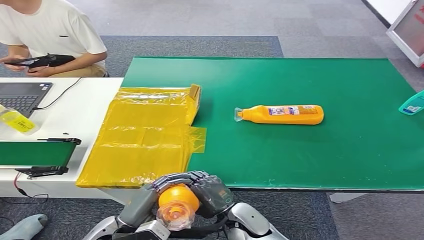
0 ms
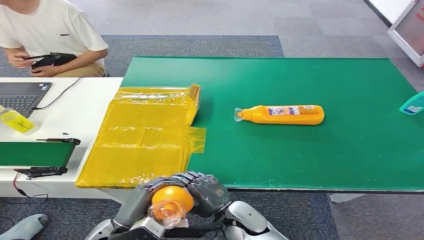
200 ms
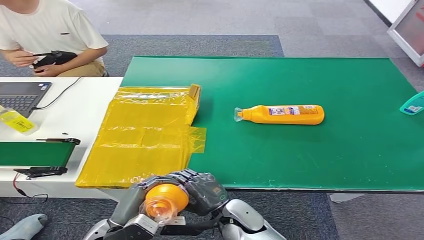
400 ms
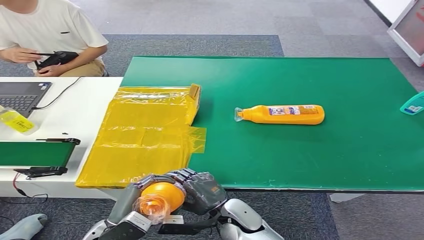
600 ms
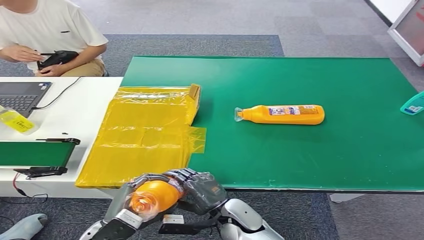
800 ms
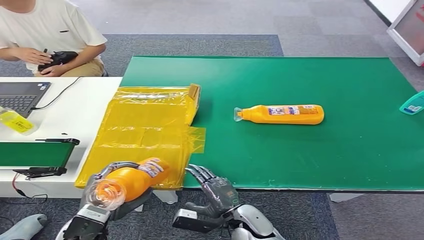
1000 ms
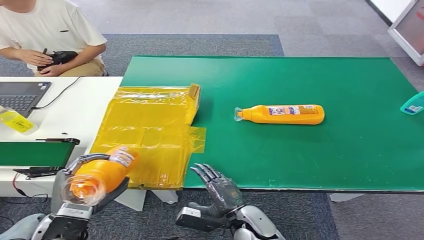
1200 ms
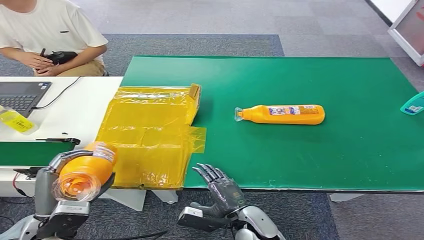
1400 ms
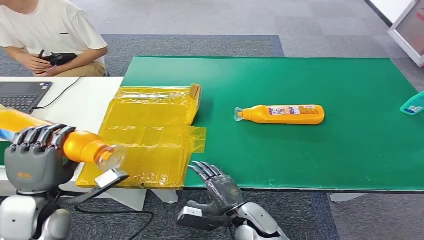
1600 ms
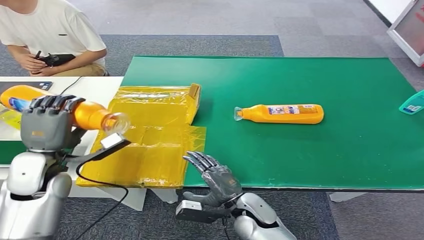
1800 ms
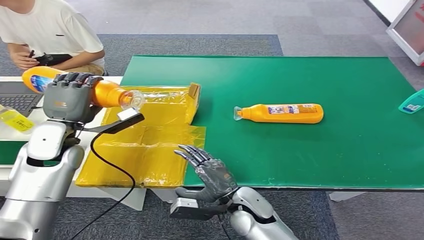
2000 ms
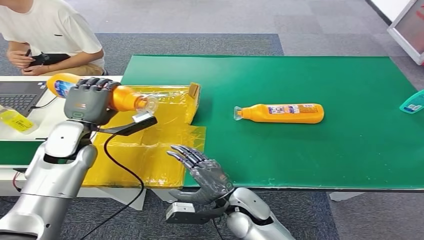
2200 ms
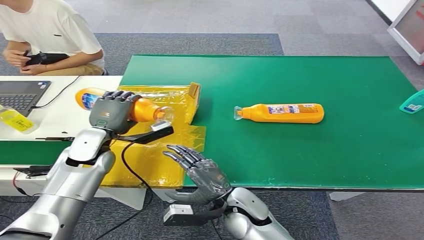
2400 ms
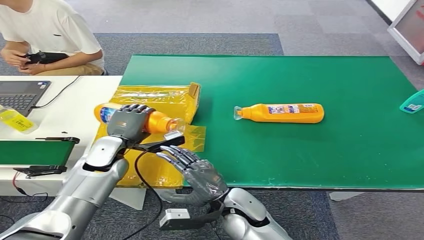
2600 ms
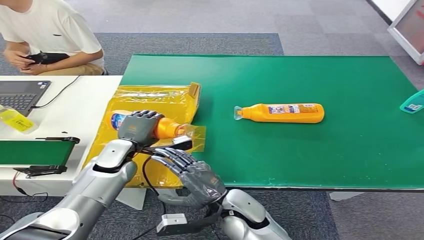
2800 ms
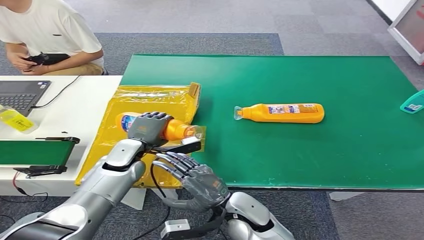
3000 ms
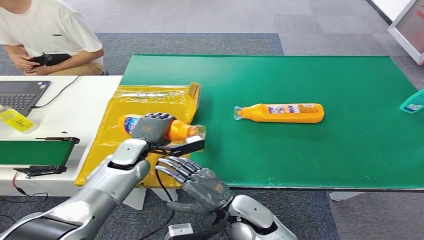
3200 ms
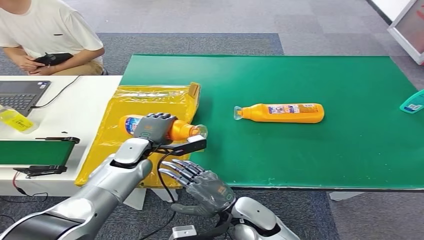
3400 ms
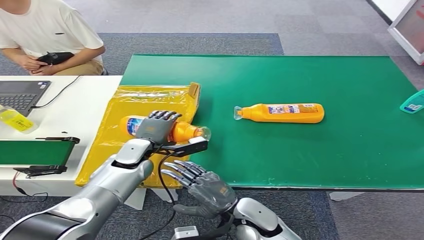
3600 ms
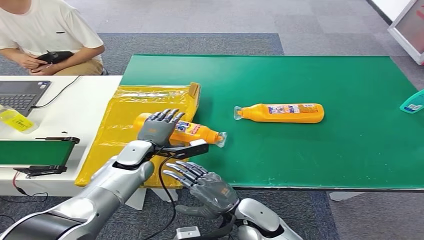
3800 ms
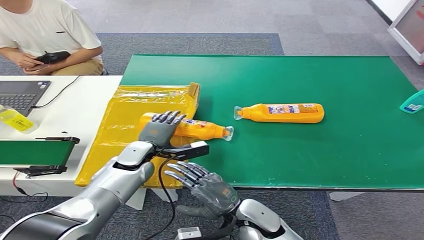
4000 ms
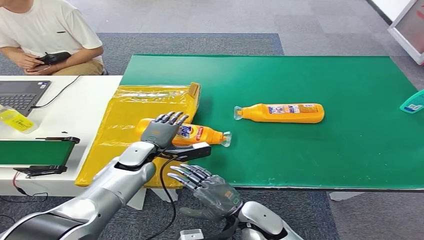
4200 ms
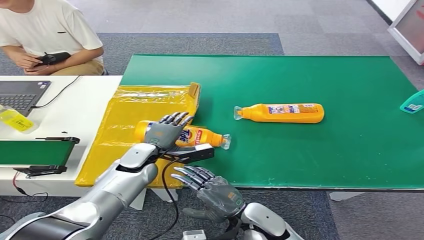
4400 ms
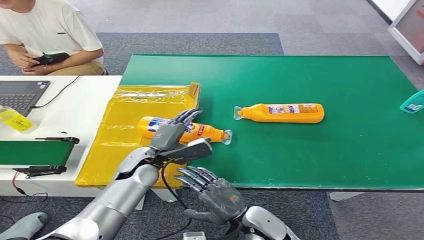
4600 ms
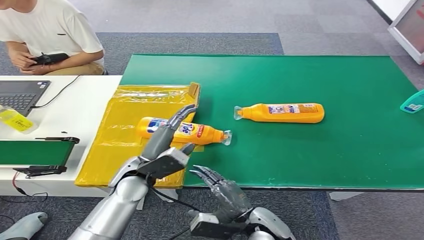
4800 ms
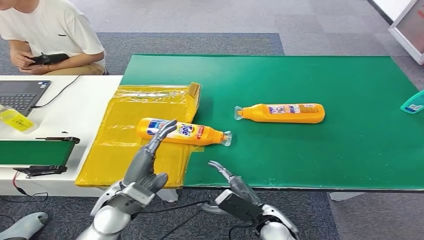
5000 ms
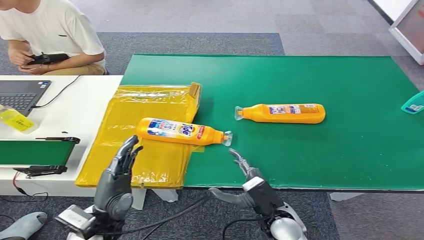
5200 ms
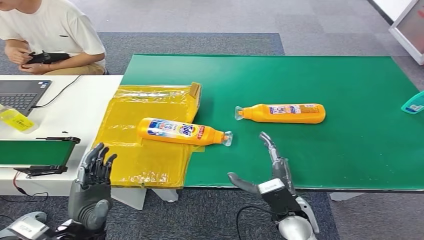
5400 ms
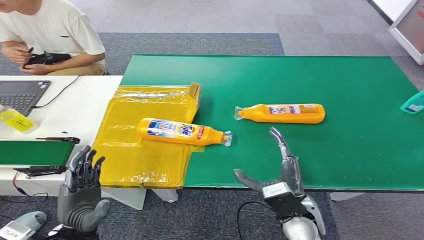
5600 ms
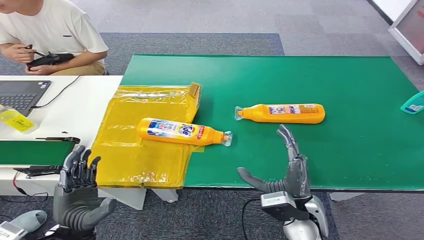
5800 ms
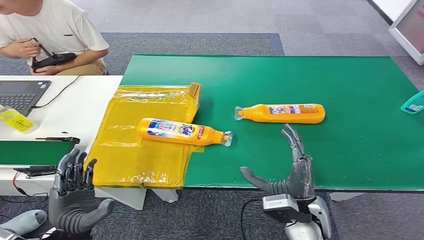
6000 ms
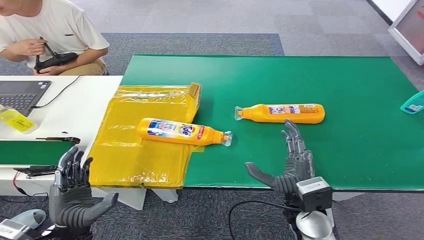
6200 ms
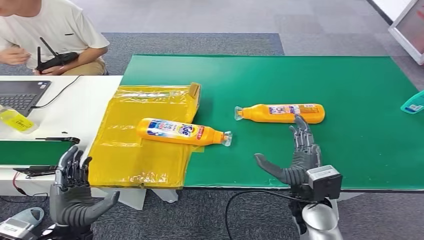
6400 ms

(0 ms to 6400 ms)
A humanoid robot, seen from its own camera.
Step, 0 ms - 6200 ms: Turn the bottle to the front side.
0 ms - 1600 ms: The left hand travels to the left and upward by approximately 15 cm.
3200 ms - 4800 ms: The right hand moves roughly 5 cm, while the left hand shifts some 10 cm backward.
4800 ms - 6400 ms: The left hand heads backward and to the left, covering about 20 cm; the right hand travels upward and to the right by approximately 10 cm.
